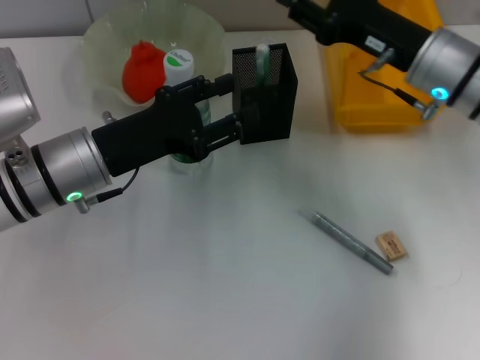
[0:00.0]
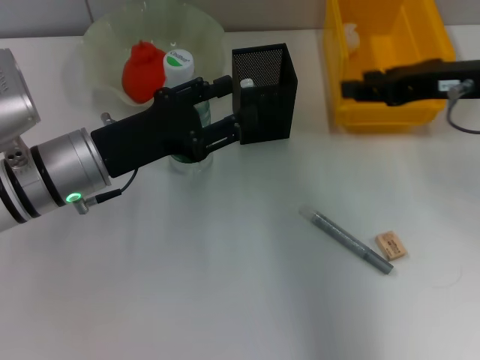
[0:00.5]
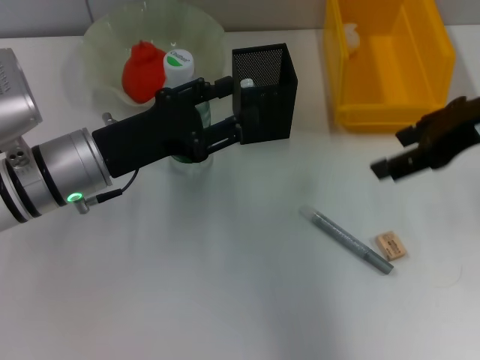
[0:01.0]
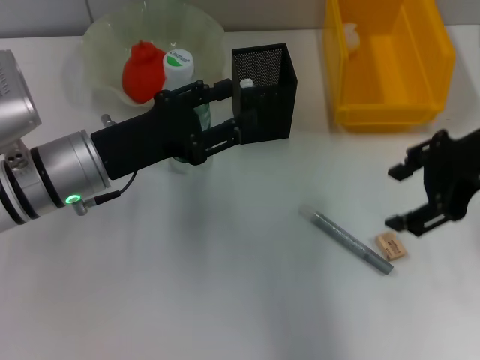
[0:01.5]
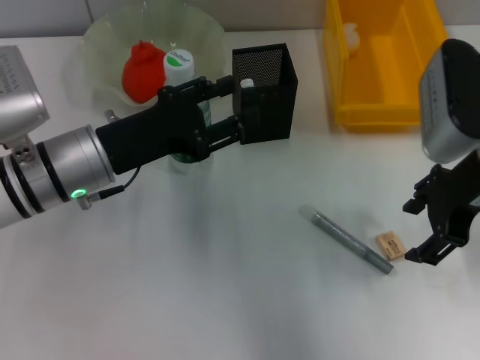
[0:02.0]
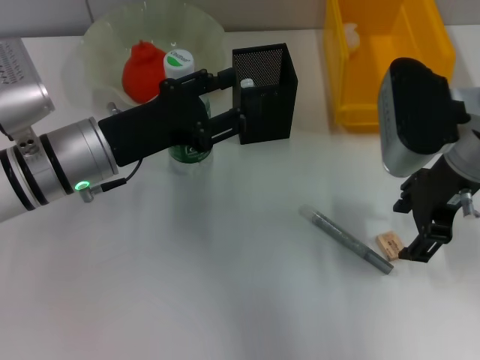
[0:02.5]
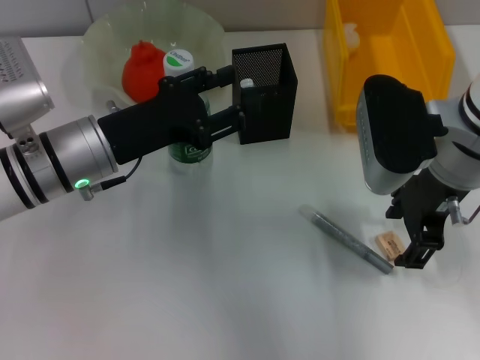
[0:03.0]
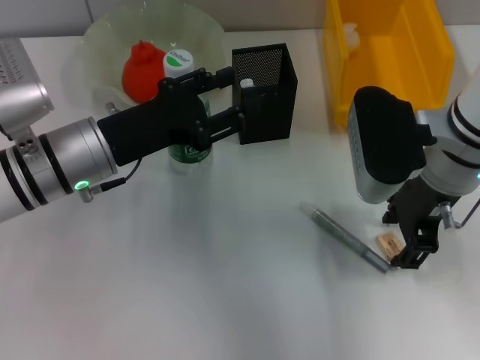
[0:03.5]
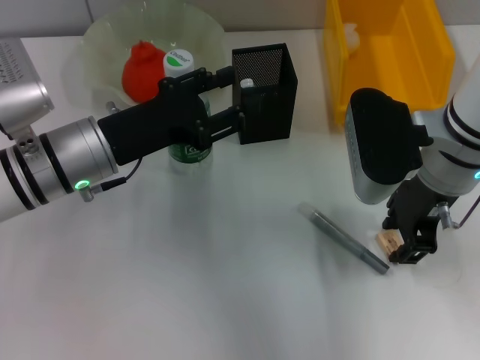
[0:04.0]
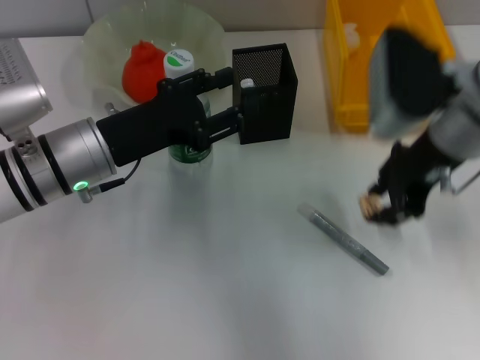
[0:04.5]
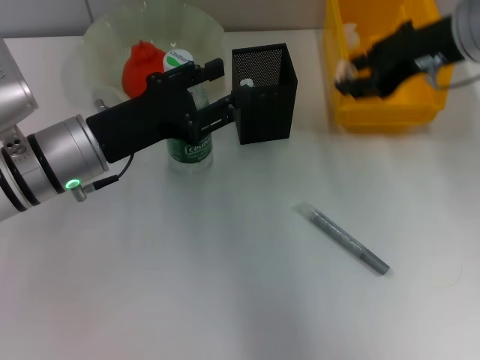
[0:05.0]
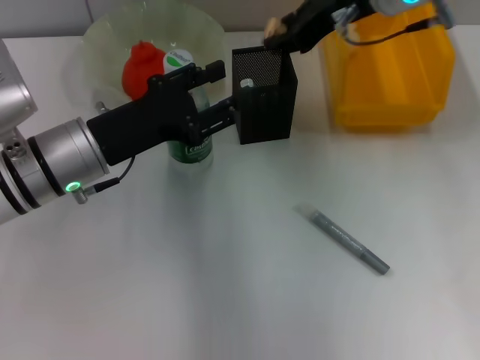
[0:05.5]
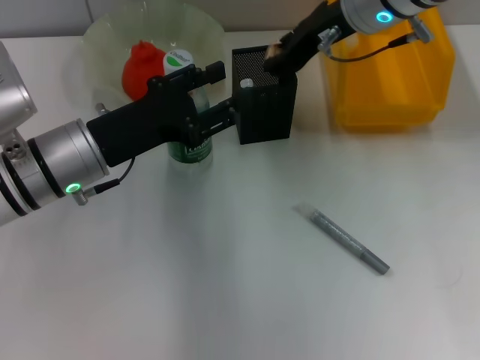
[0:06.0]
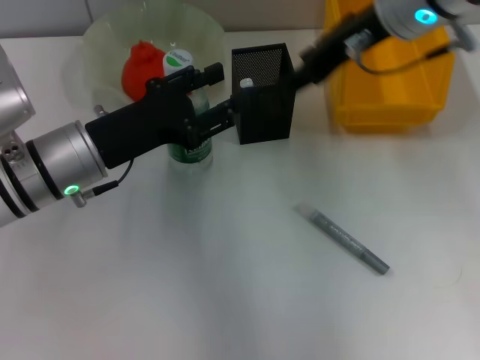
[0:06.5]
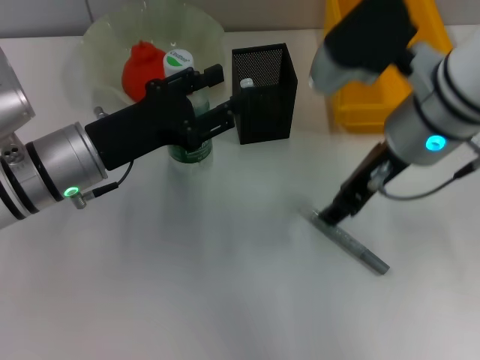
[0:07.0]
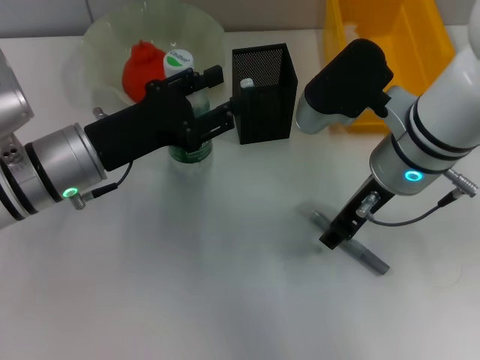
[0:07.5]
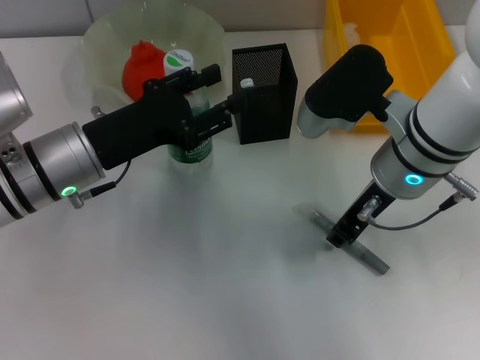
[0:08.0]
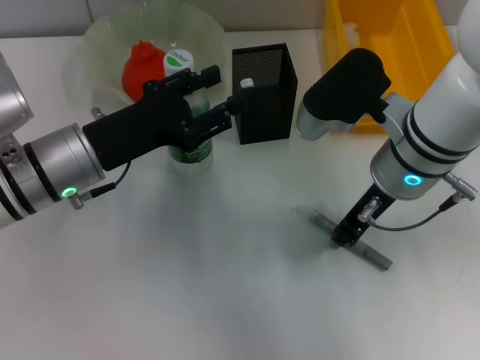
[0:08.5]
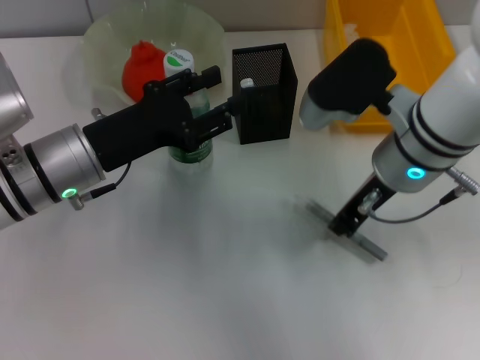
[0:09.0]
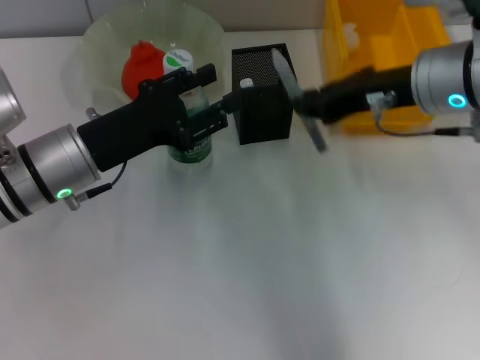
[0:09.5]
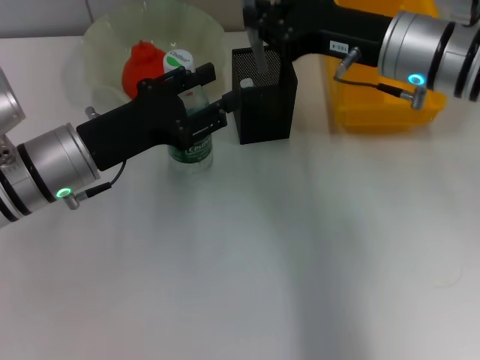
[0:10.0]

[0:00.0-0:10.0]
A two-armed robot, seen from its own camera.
Step, 0:00.0 to 0:04.0: Grab the eraser with the right hand.
Step, 0:04.5 to 0:06.0: Put the eraser into the pen holder with the right hand.
Step, 0:06.5 to 0:08.5: Grab the gray glue with the right hand.
0:00.0 to 0:02.0: The right gripper goes approximately 5 cm backward, and opens up.
0:02.0 to 0:04.0: The right gripper moves some 5 cm.
0:04.0 to 0:06.0: The right gripper heads forward and upward, covering approximately 10 cm.
0:06.0 to 0:08.0: The right gripper is displaced backward and downward by roughly 15 cm.
0:08.0 to 0:10.0: The right gripper changes place by approximately 5 cm, and closes its fingers.

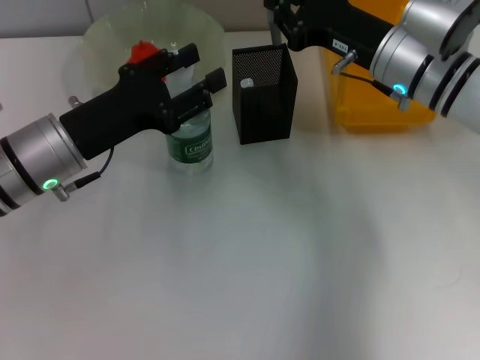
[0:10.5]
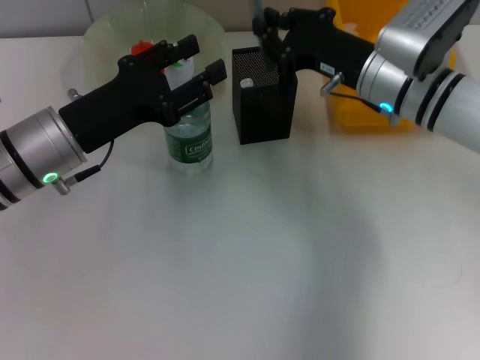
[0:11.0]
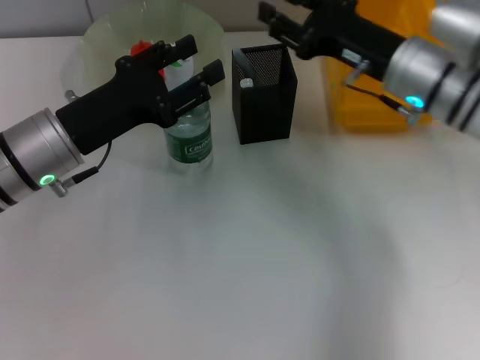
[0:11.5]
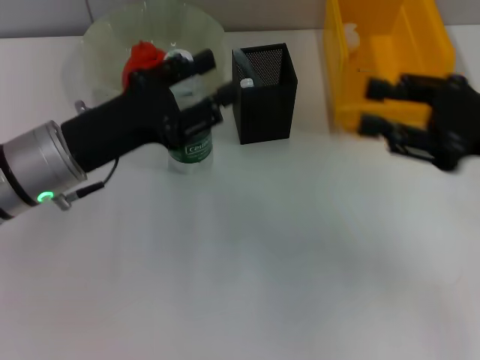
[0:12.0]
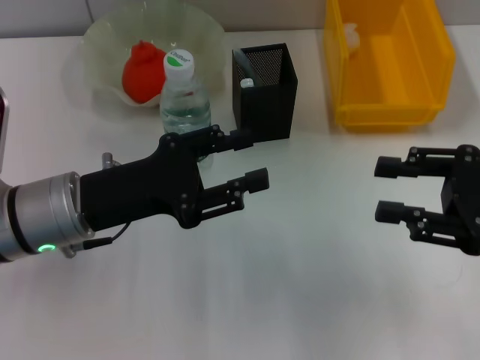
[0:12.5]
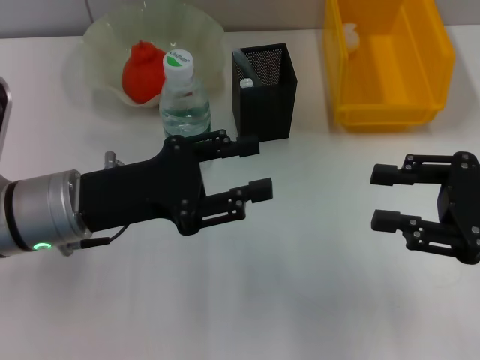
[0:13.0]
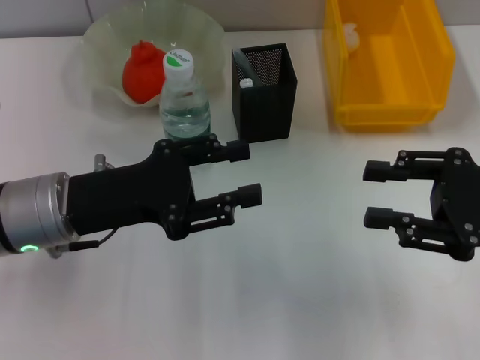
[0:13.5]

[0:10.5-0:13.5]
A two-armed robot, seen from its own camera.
0:10.5 to 0:12.0: The right gripper heads to the right and backward, covering approximately 15 cm, and opens its fingers.

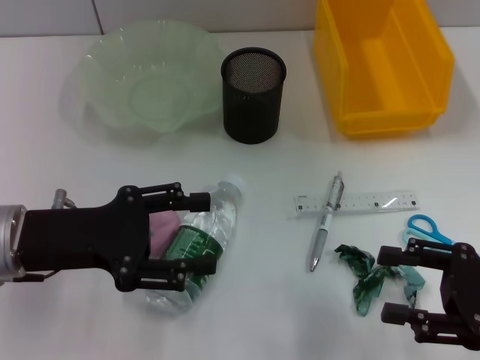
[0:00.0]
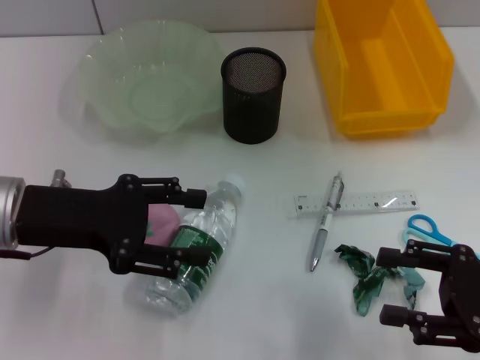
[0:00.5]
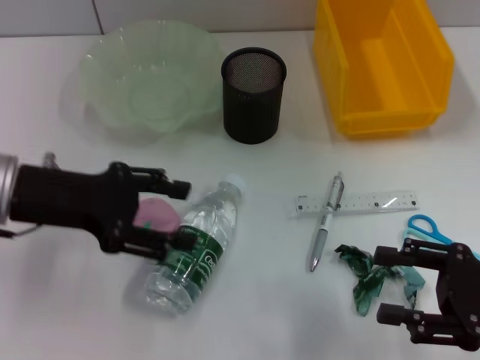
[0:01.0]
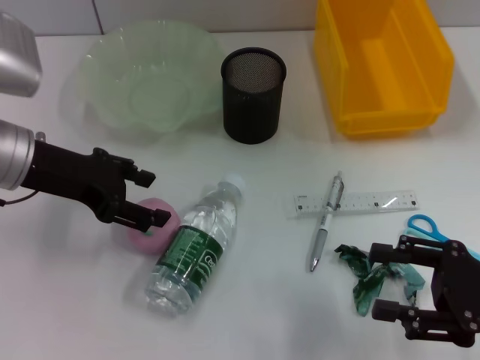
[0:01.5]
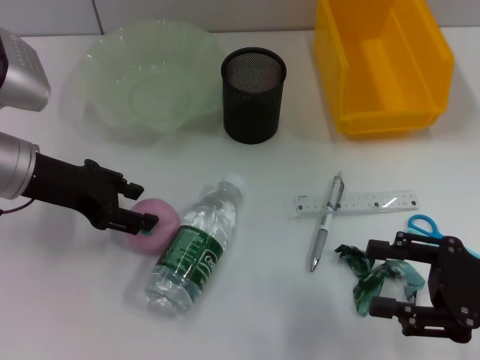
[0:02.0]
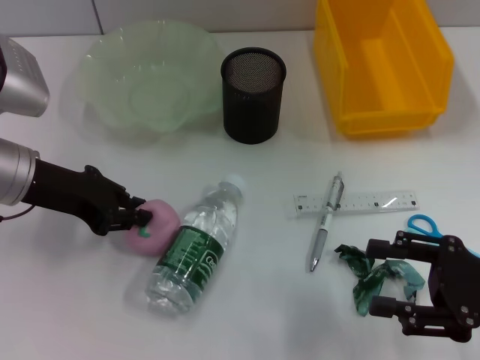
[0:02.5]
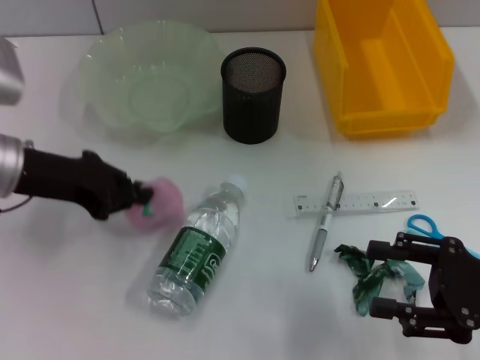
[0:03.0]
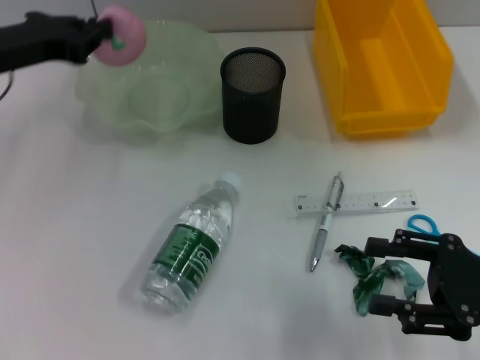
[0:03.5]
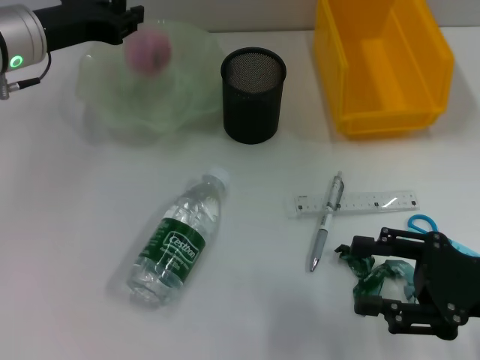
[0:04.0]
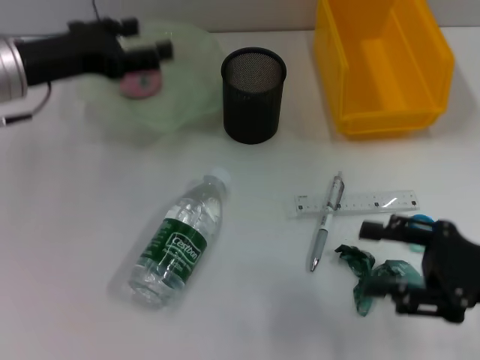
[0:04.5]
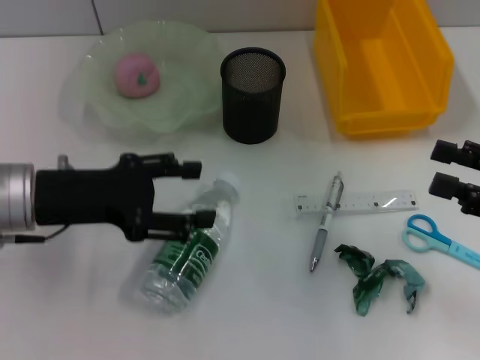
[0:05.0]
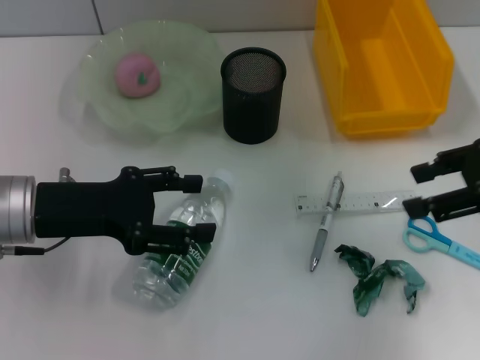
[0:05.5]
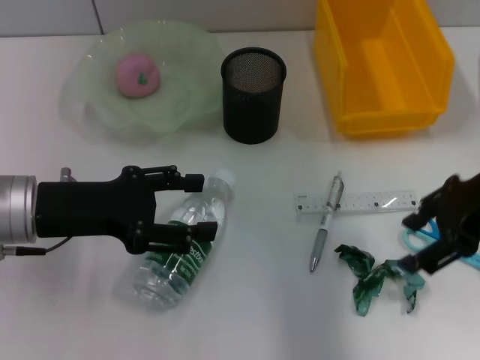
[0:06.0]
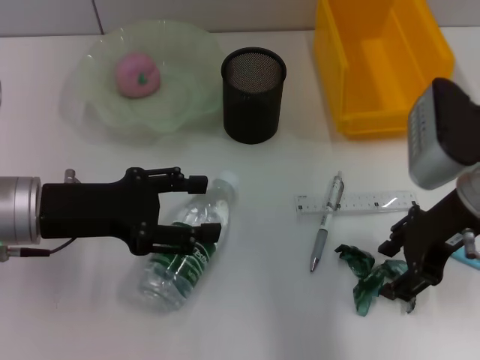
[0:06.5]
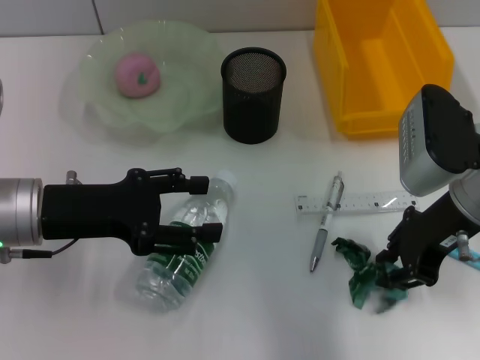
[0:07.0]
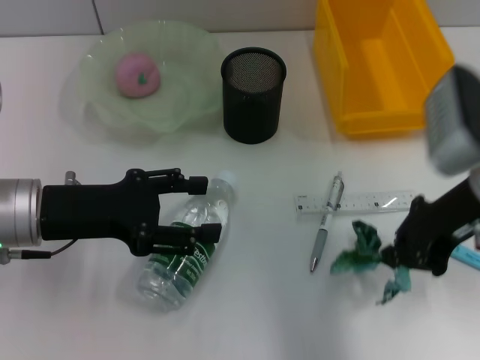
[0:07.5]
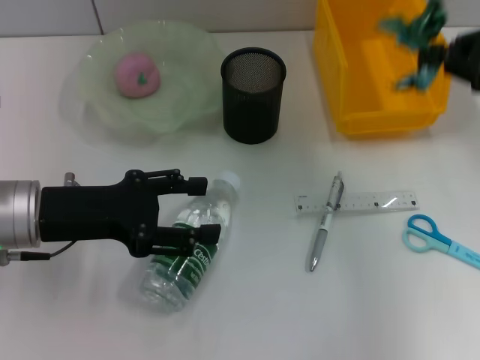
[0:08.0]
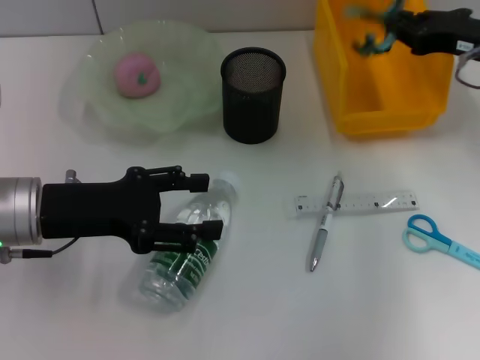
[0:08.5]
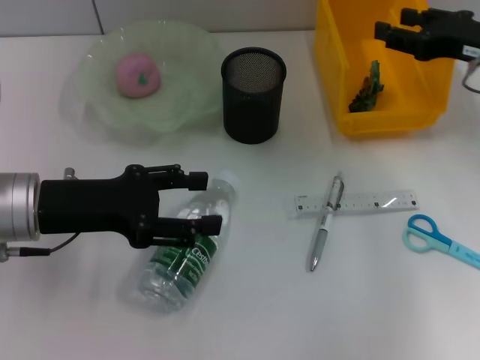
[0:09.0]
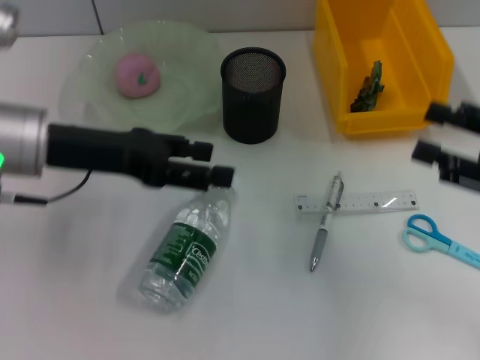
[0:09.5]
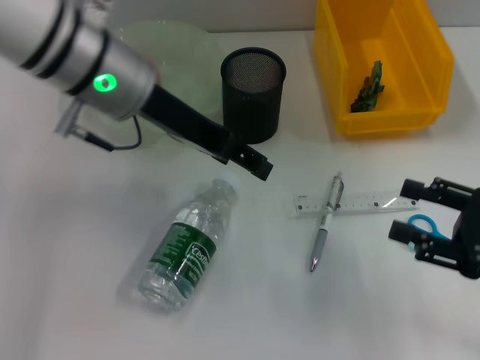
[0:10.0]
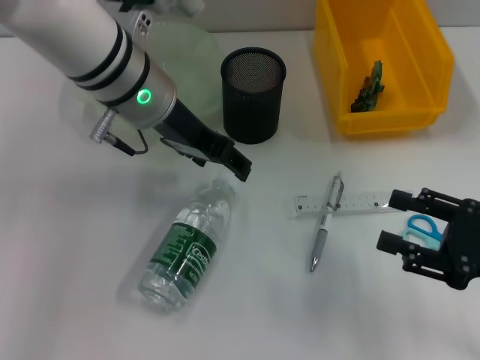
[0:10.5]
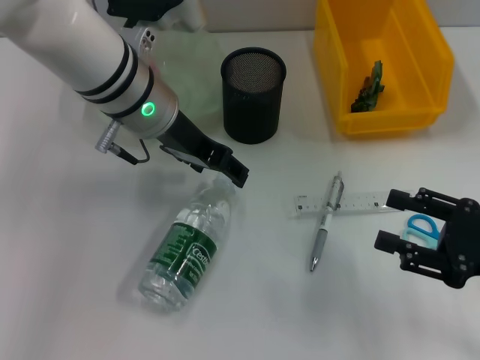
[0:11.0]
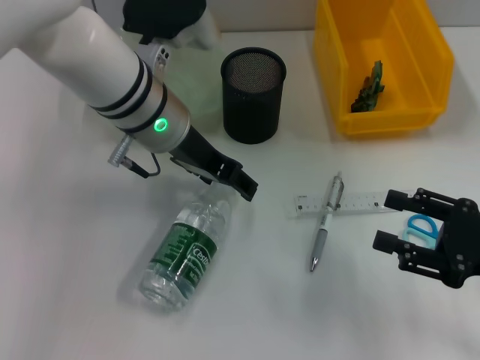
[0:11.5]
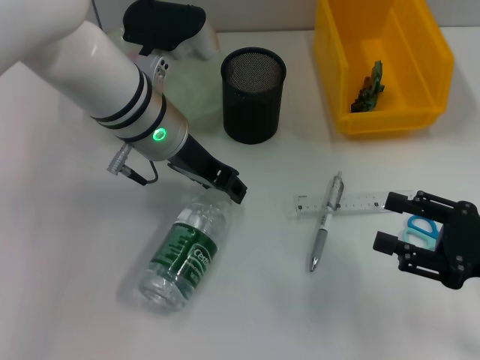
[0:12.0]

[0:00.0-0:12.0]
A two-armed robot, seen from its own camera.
Step, 0:00.0 to 0:02.5: Grab the peach with the left hand.
Step, 0:03.0 to 0:04.0: Place the peach into the fruit bowl with the left hand.
Step, 0:05.0 to 0:07.0: Grab the plastic with the right hand.
Step, 0:07.5 to 0:09.0: Place the plastic into the trash can with the right hand.
0:00.0 to 0:02.0: The left gripper heads forward, covering roughly 10 cm.
0:02.0 to 0:04.0: The left gripper shifts approximately 10 cm forward, and closes its fingers.
0:04.0 to 0:06.0: The left gripper goes some 15 cm backward, and opens. The right gripper shifts approximately 15 cm upward and forward.
0:06.0 to 0:08.0: The right gripper heads to the right, covering roughly 5 cm, and closes its fingers.
0:08.0 to 0:10.0: The left gripper is displaced to the right, upward and forward by roughly 15 cm. The right gripper goes about 20 cm downward and backward, and opens its fingers.
0:10.0 to 0:12.0: The left gripper shifts some 5 cm downward.
